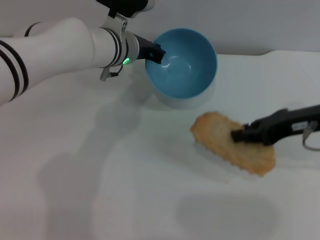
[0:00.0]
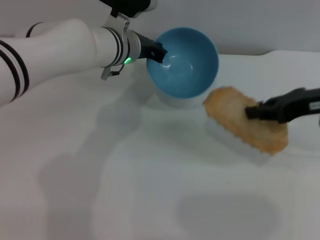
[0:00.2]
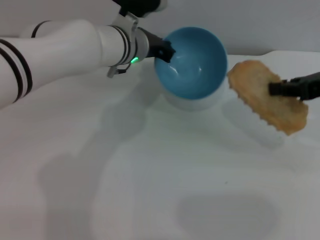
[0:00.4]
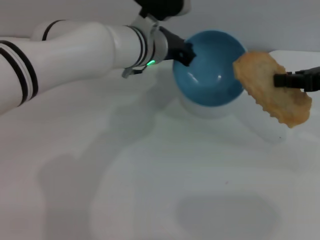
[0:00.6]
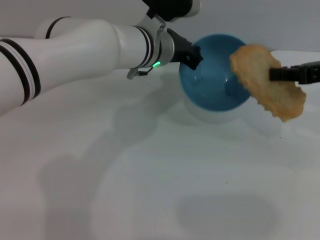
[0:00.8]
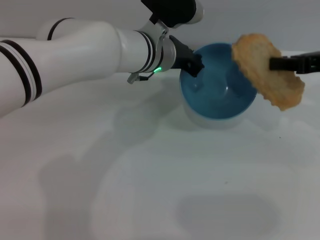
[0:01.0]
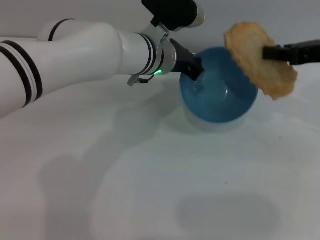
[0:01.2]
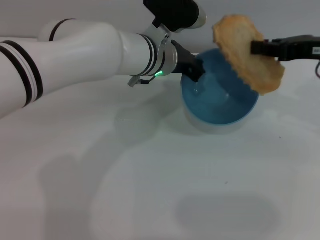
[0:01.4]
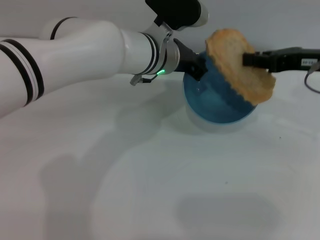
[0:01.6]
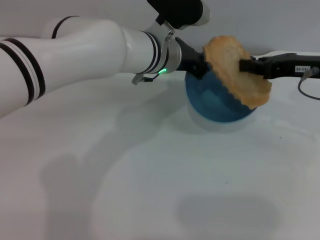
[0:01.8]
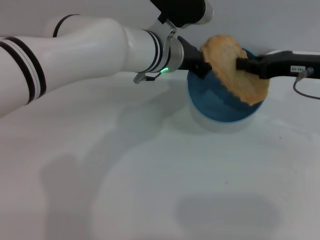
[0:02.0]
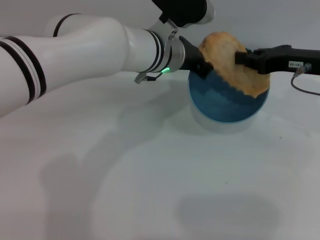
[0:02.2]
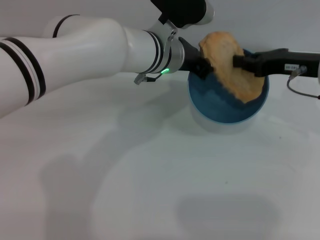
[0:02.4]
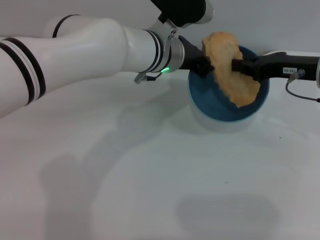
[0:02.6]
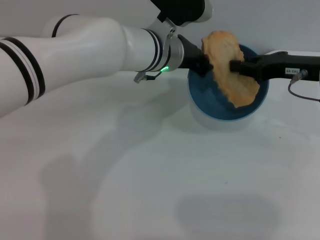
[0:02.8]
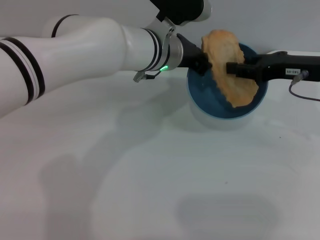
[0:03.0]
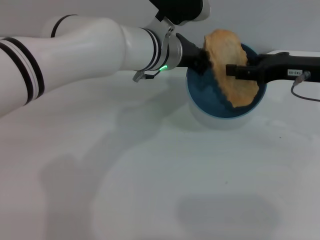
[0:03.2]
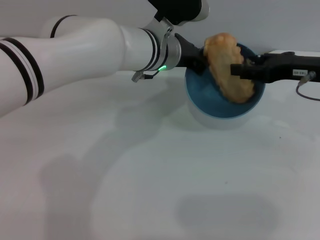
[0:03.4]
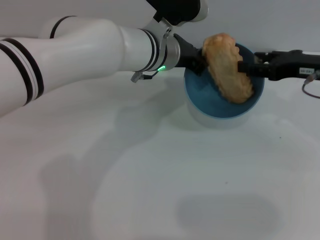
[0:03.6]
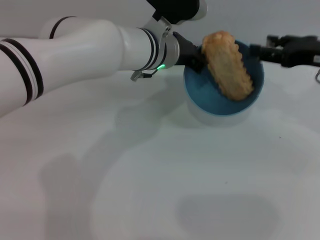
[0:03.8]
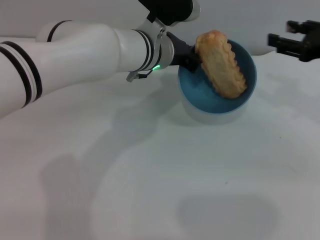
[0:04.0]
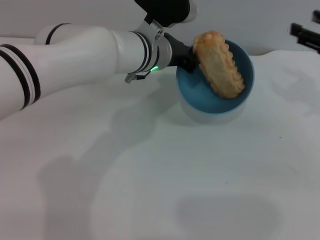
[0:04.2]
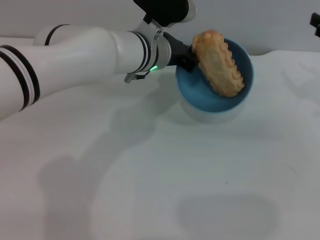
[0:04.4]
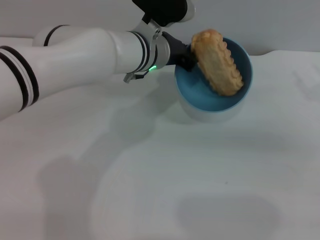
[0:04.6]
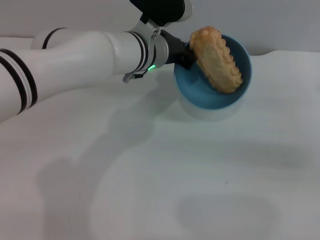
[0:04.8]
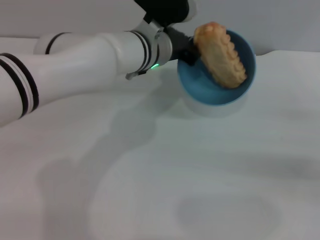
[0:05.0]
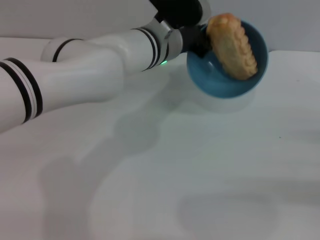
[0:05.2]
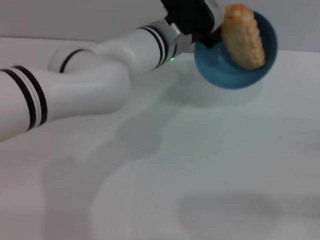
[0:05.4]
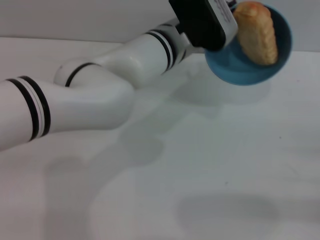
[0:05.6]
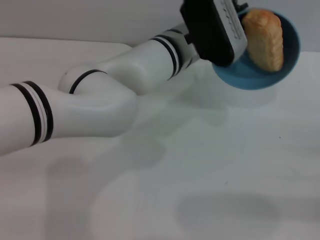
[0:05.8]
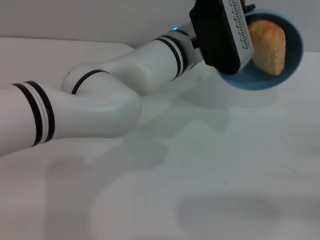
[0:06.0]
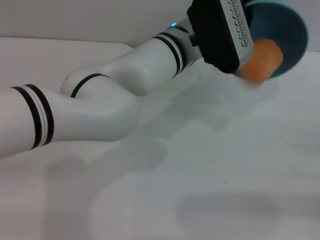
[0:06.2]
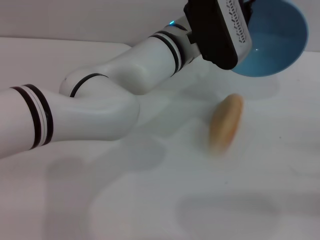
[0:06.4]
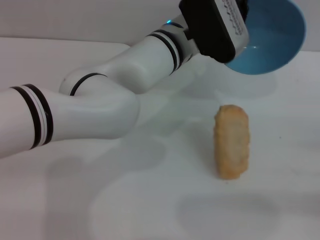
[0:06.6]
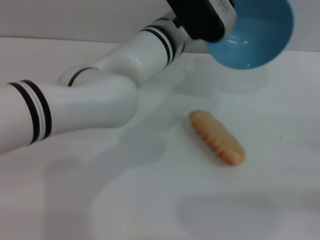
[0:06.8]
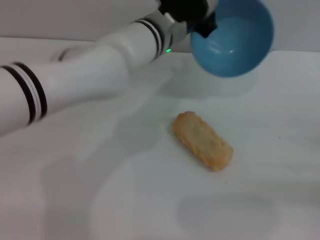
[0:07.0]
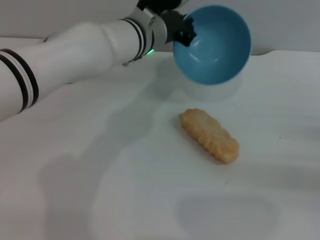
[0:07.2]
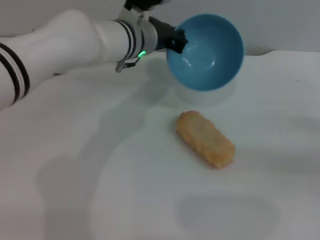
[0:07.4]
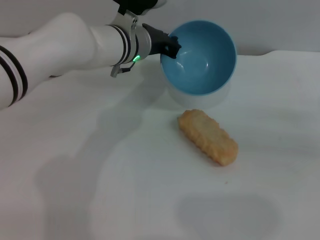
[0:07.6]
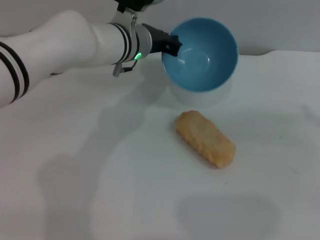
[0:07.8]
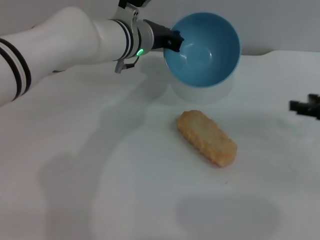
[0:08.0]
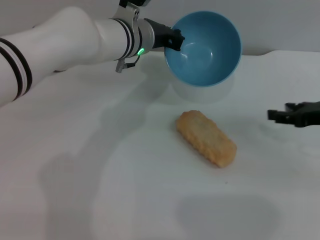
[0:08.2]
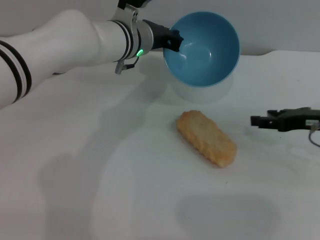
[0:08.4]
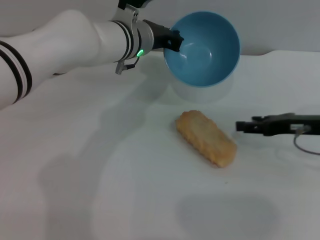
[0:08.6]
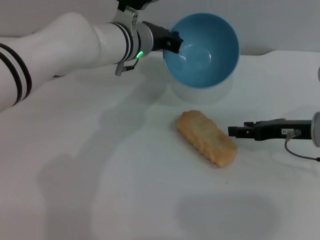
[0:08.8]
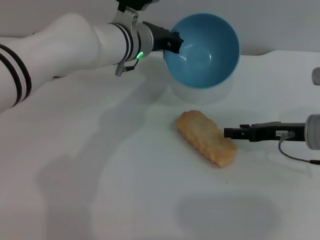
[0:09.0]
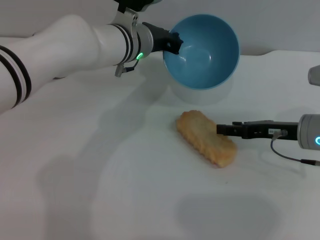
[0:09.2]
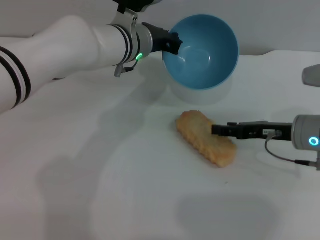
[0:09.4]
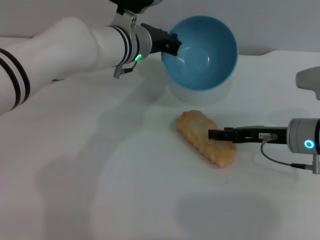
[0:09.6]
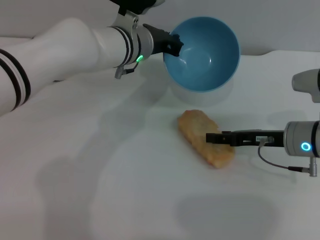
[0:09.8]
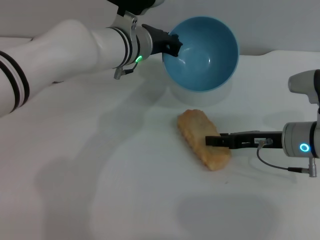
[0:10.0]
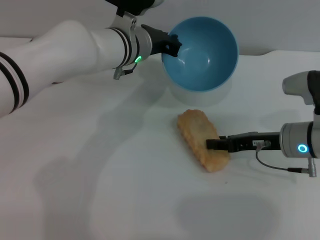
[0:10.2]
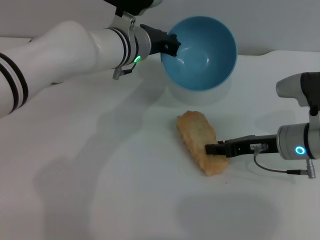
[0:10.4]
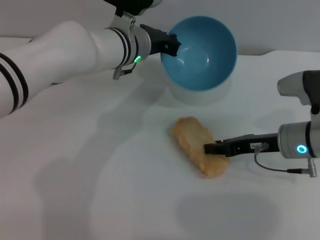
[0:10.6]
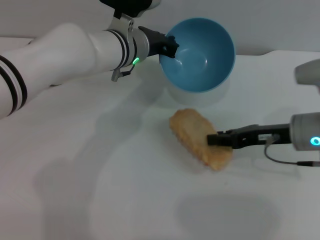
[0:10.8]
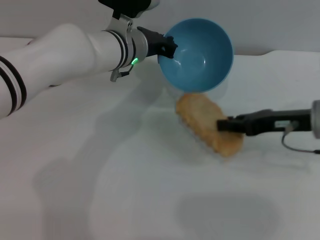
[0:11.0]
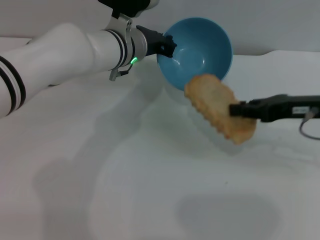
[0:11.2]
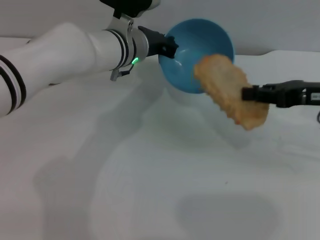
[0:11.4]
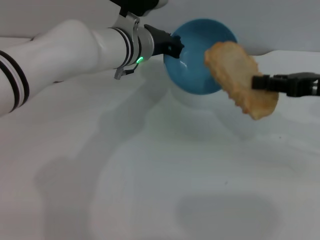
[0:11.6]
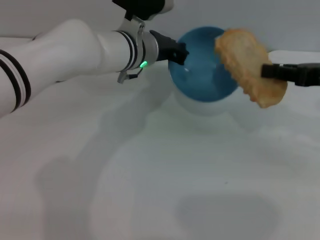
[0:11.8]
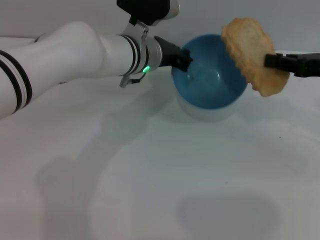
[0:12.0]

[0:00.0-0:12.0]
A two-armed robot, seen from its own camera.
Task of the whole recording: put the bread into the blue bowl and pour it out repeatedly.
Step, 0:00.2 to 0:03.8: Place the bread into the bowl.
Step, 0:04.0 to 0:06.8: Pour the bread out of the bowl.
Step, 0:07.0 to 0:11.2: Pick up the bread with the right gripper.
0:00.0 to 0:01.6: The right gripper moves forward, about 5 cm. The left gripper goes some 5 cm to the right.
0:01.6 to 0:03.0: The grippers move only a little.
0:03.0 to 0:04.4: The right gripper heads to the right, covering approximately 10 cm, and opens.
0:04.4 to 0:06.0: The left gripper shifts approximately 5 cm to the right. The right gripper heads backward, downward and to the right, covering about 20 cm.
0:06.0 to 0:07.6: The right gripper travels forward and upward by approximately 10 cm, while the left gripper goes roughly 10 cm to the left.
0:07.6 to 0:09.0: The right gripper travels to the left by some 15 cm.
0:09.0 to 0:10.4: The grippers stay close to where they were, moving slightly.
0:10.4 to 0:12.0: The right gripper travels upward and to the right by roughly 15 cm, and closes up.

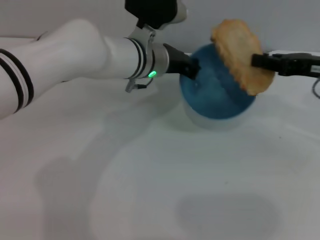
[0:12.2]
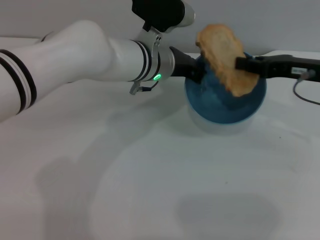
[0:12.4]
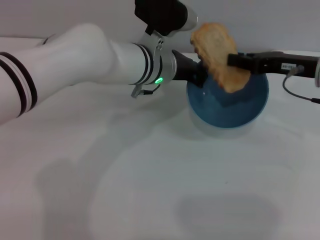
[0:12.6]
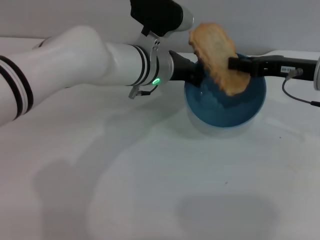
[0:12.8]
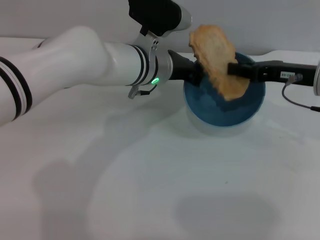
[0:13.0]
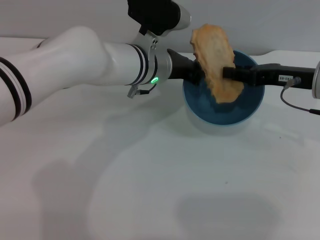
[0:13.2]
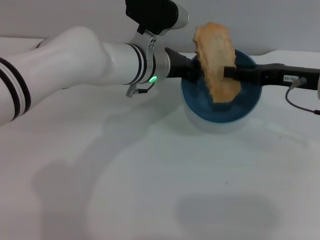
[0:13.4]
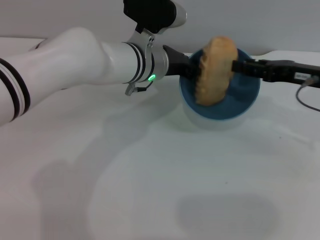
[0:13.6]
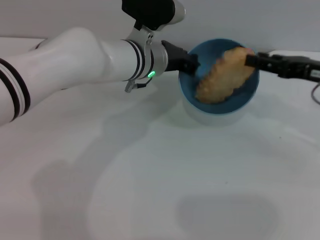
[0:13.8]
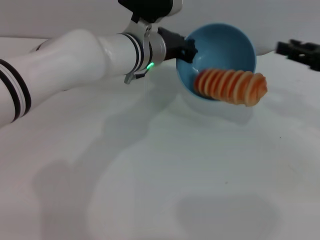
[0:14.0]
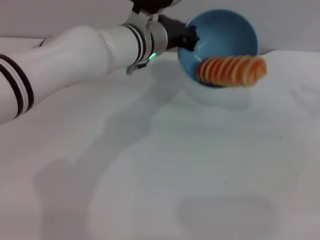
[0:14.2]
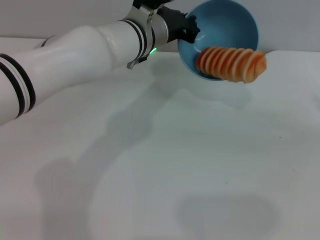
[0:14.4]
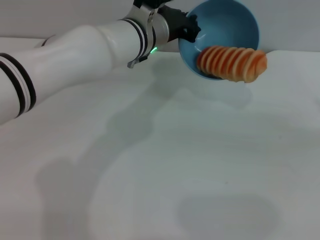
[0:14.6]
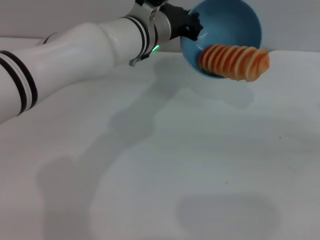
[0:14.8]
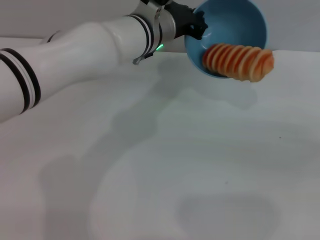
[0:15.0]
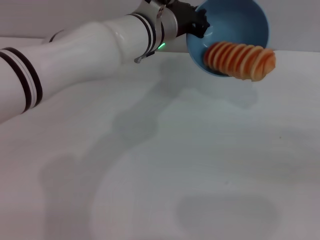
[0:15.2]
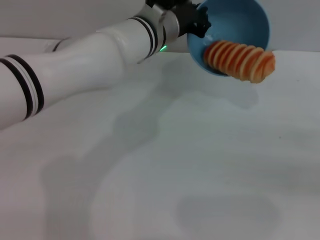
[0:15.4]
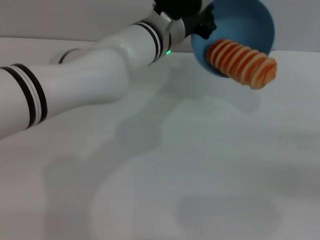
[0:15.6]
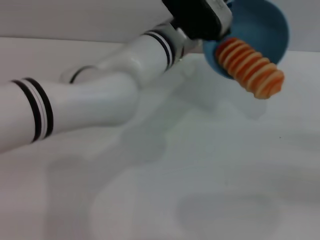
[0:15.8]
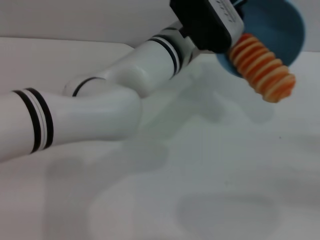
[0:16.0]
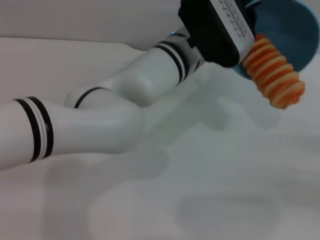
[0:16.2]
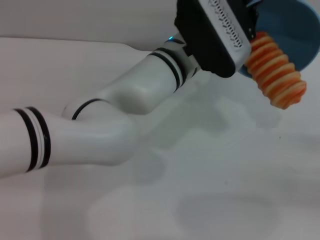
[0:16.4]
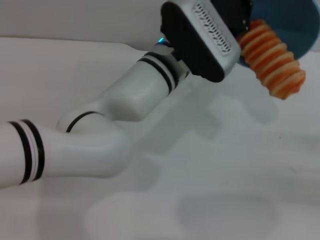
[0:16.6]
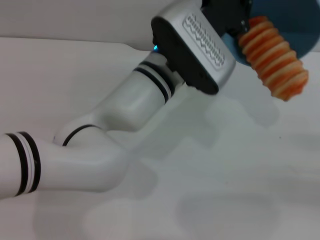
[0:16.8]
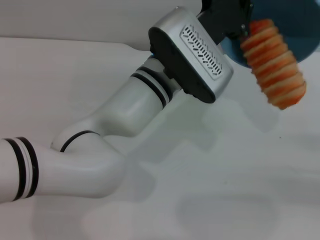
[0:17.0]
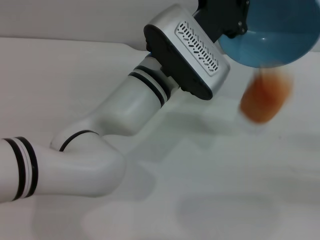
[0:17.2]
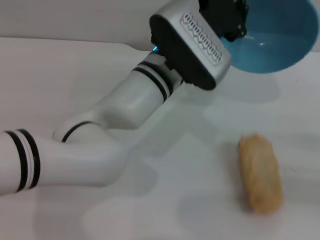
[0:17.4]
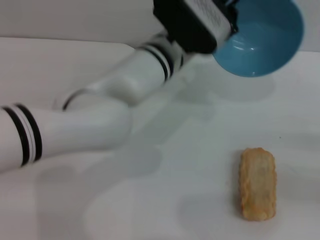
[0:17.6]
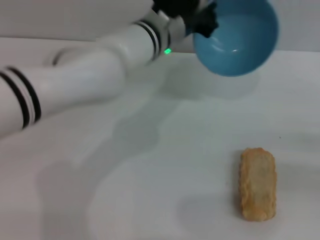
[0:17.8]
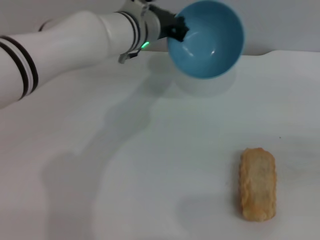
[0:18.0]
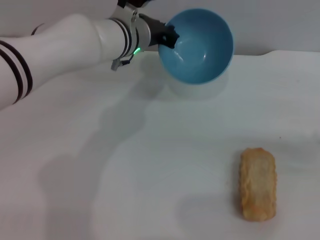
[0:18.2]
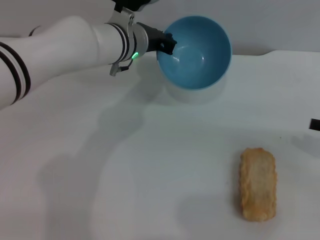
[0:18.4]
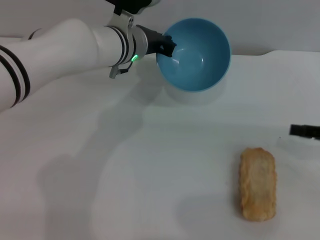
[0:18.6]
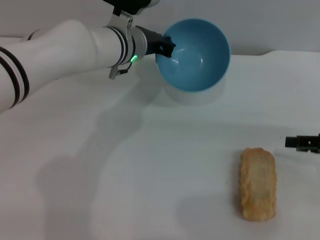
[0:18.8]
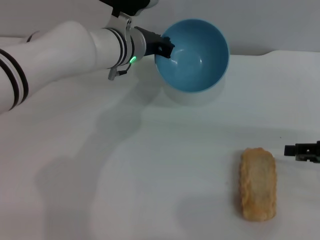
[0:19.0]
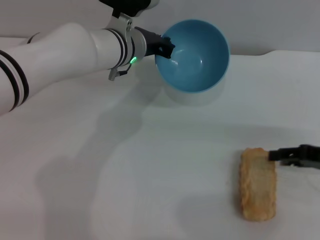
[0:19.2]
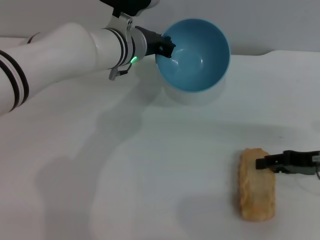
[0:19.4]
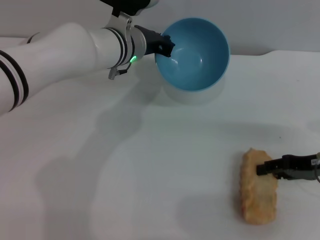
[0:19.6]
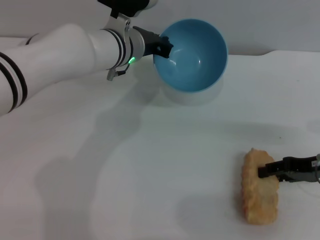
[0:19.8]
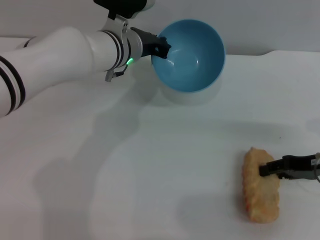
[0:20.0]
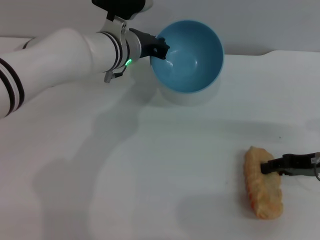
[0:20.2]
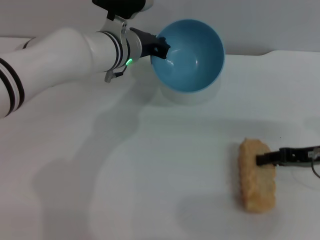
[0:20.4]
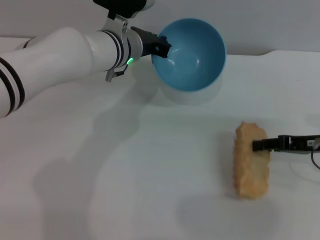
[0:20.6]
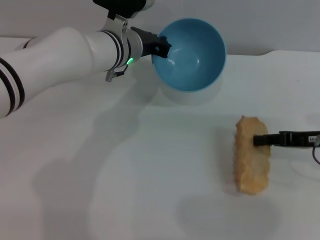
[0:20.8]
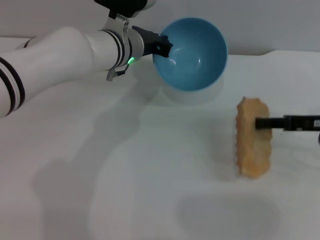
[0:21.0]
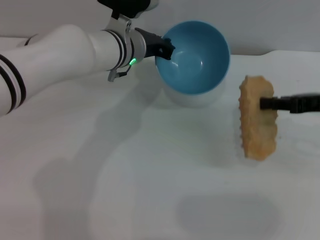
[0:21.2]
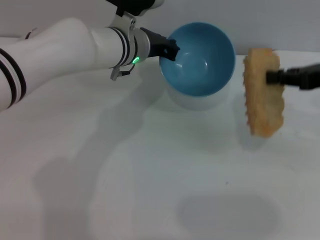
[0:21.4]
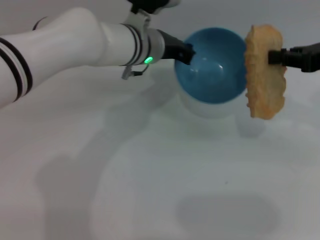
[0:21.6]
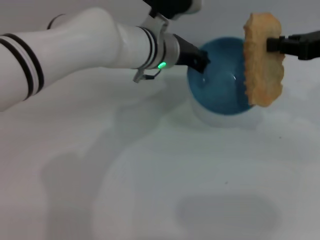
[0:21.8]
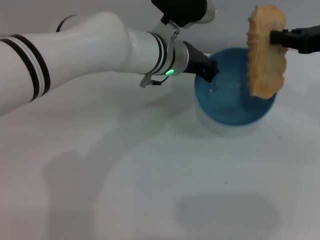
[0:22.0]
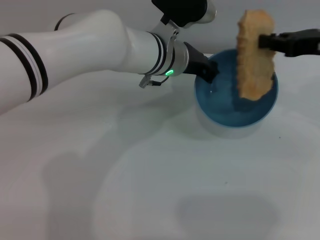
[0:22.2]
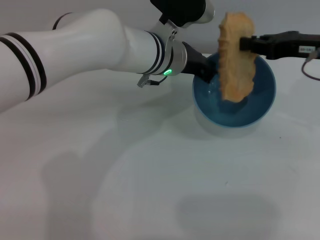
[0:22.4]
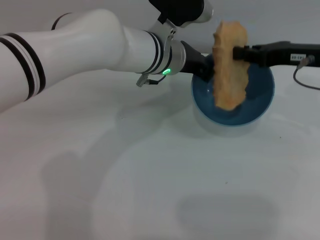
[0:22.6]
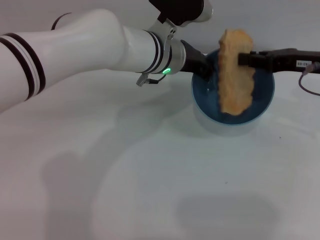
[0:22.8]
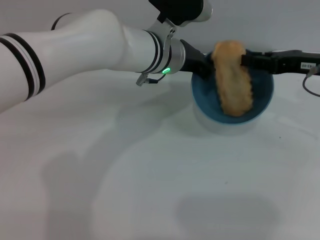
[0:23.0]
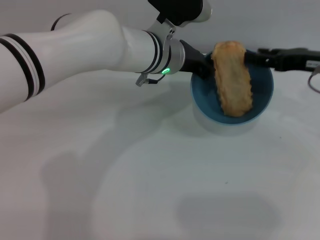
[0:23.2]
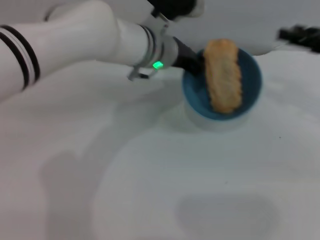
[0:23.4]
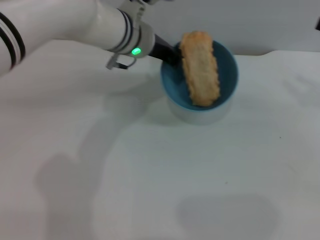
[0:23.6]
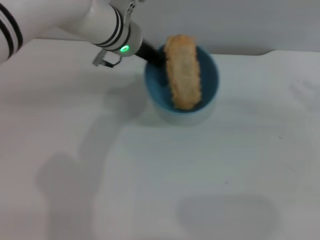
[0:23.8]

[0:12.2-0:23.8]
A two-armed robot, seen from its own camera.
Task of the whole recording: put the bread into the blue bowl and pour it out repeatedly.
Step, 0:12.2 to 0:14.0: Place the bread into the bowl.
Step, 0:14.2 to 0:17.6: Pour the bread out of the bowl.
Step, 0:17.8 to 0:21.2: Pick up the bread with the right gripper.
Step, 0:21.4 to 0:23.2: Place the bread into the bowl.
0:12.2 to 0:13.6: The right gripper opens up.
0:13.6 to 0:15.0: The right gripper is displaced to the right and backward by roughly 20 cm.
0:15.0 to 0:16.6: The left gripper goes some 5 cm backward. Meanwhile the right gripper travels downward by approximately 5 cm.
0:16.6 to 0:18.0: The left gripper moves forward and to the left, some 10 cm.
0:18.0 to 0:19.4: The right gripper is displaced to the left and forward by about 15 cm.
0:21.0 to 0:22.4: The left gripper moves to the right, roughly 5 cm; the right gripper is displaced upward and forward by approximately 10 cm.
0:22.4 to 0:23.8: The left gripper is displaced to the left by some 5 cm. Meanwhile the right gripper goes approximately 10 cm to the right and backward, and opens up.
